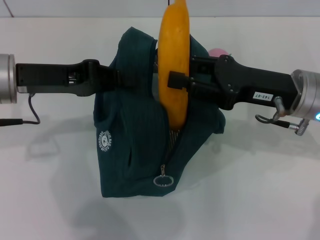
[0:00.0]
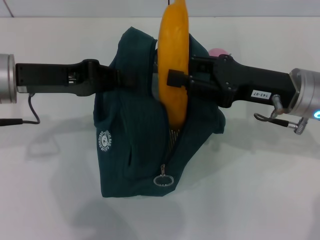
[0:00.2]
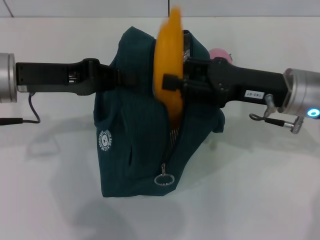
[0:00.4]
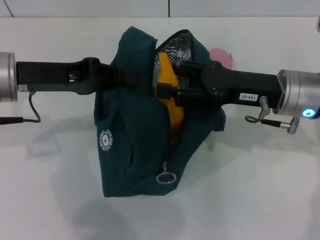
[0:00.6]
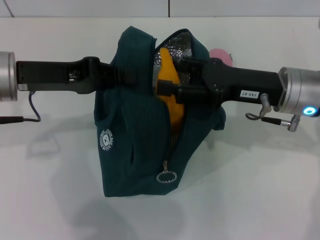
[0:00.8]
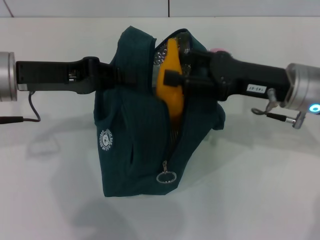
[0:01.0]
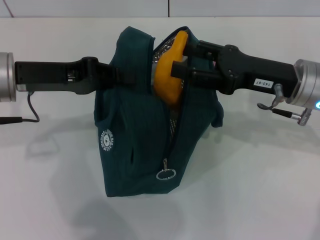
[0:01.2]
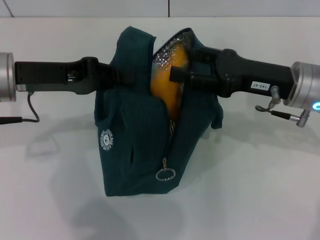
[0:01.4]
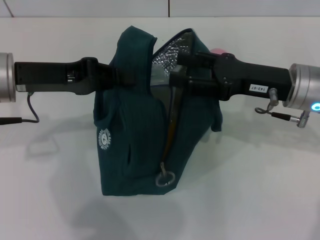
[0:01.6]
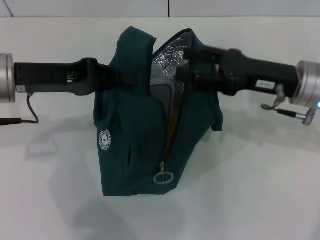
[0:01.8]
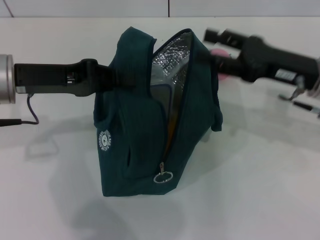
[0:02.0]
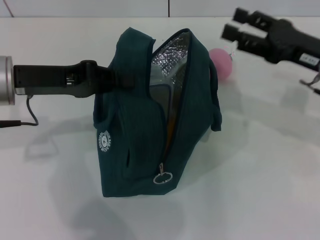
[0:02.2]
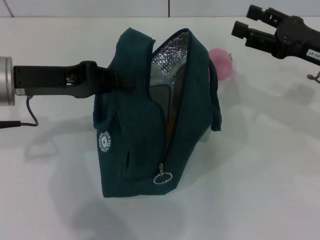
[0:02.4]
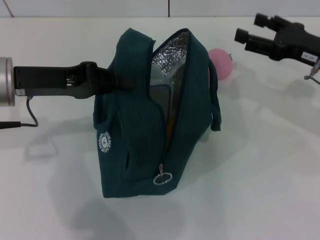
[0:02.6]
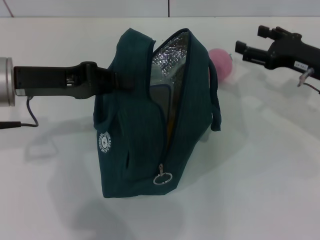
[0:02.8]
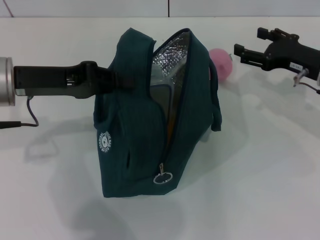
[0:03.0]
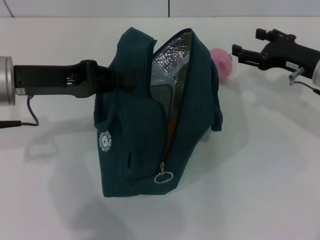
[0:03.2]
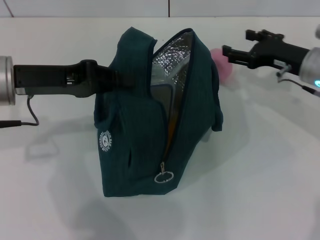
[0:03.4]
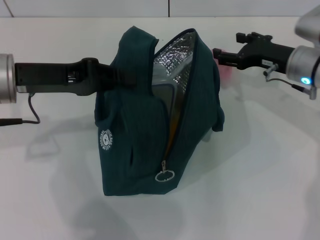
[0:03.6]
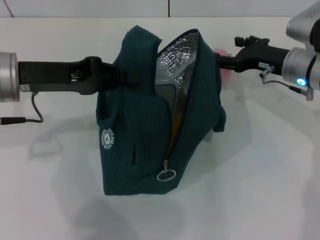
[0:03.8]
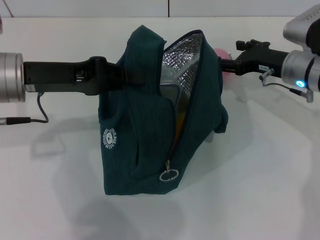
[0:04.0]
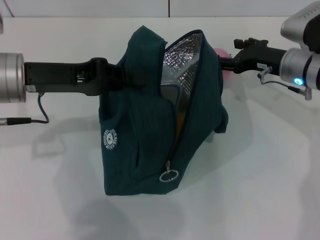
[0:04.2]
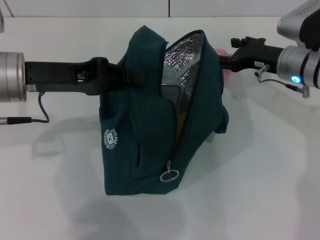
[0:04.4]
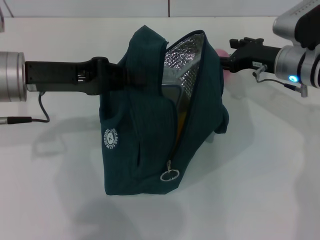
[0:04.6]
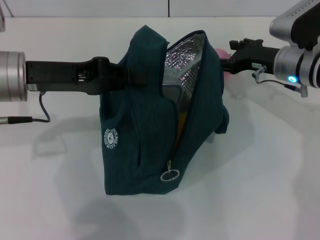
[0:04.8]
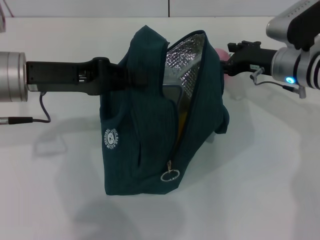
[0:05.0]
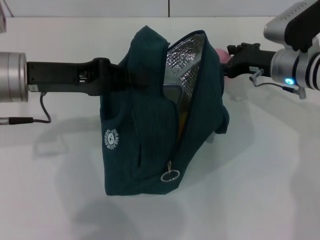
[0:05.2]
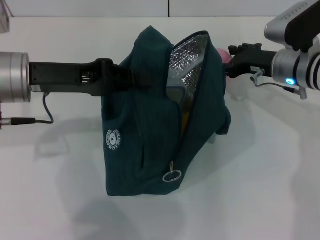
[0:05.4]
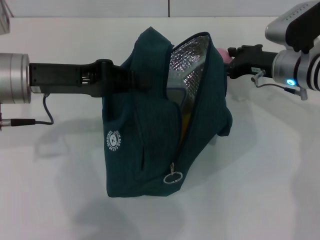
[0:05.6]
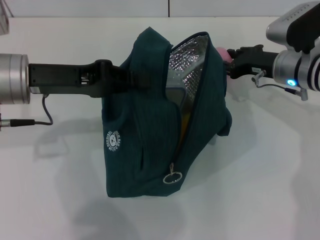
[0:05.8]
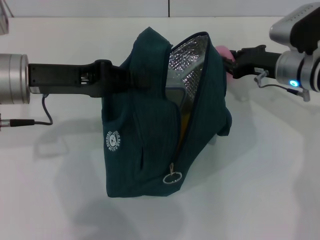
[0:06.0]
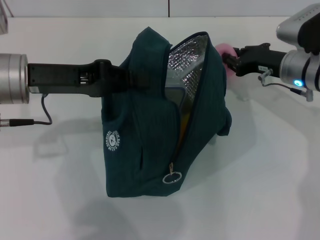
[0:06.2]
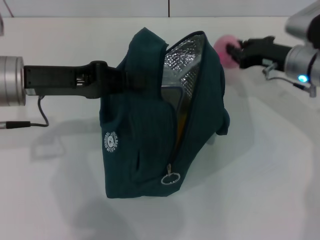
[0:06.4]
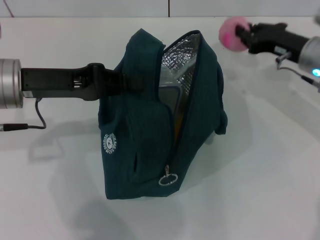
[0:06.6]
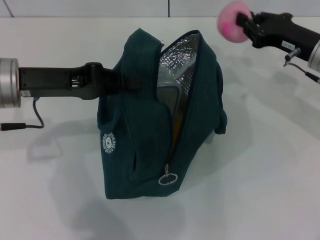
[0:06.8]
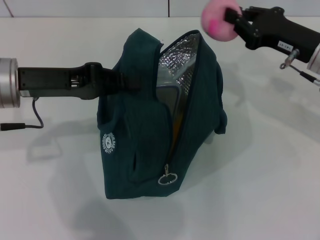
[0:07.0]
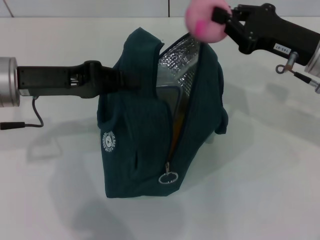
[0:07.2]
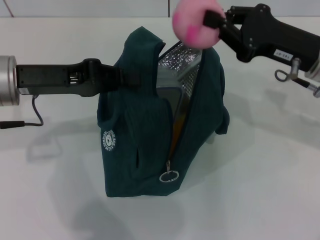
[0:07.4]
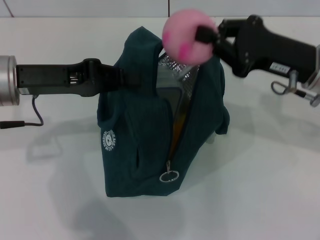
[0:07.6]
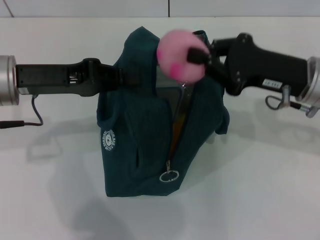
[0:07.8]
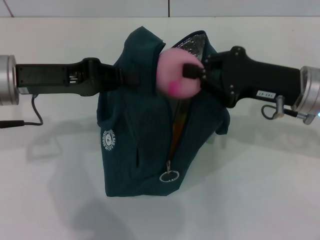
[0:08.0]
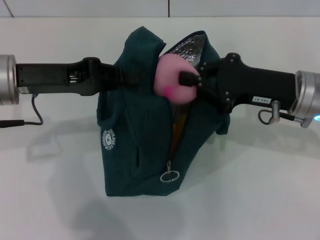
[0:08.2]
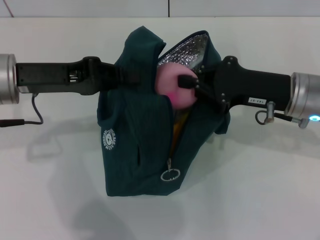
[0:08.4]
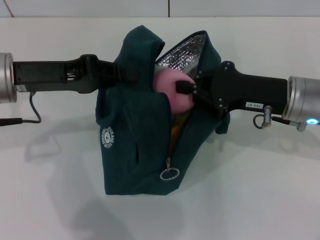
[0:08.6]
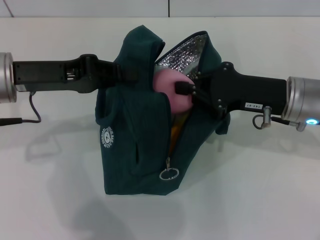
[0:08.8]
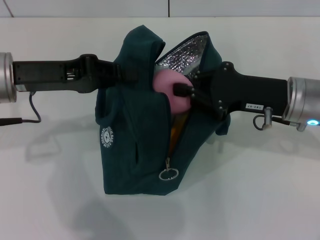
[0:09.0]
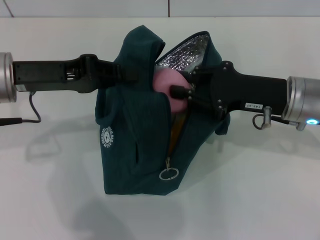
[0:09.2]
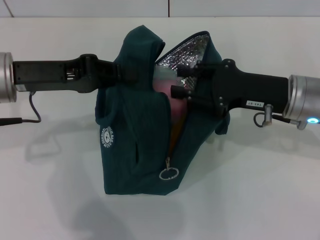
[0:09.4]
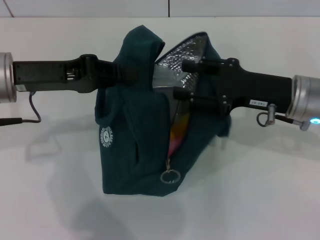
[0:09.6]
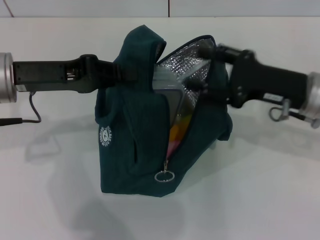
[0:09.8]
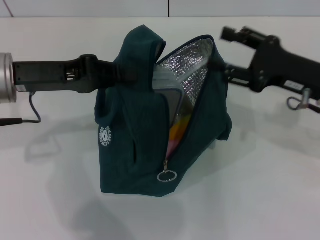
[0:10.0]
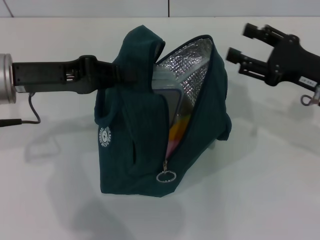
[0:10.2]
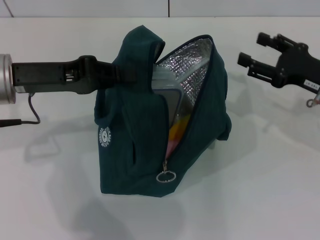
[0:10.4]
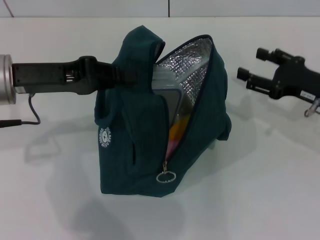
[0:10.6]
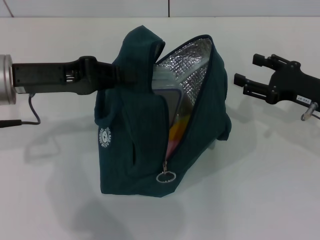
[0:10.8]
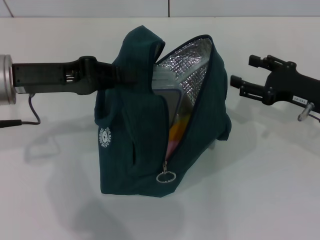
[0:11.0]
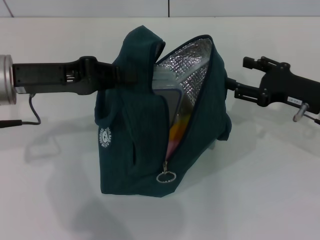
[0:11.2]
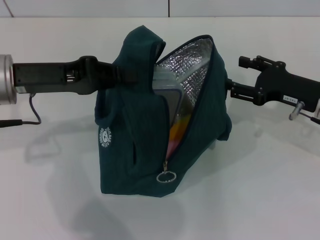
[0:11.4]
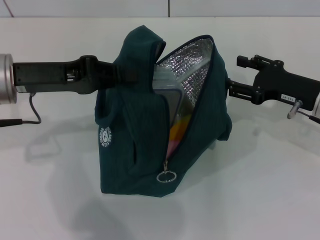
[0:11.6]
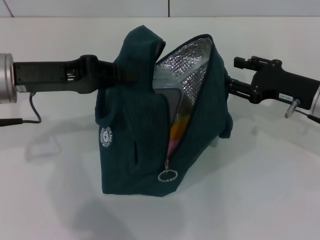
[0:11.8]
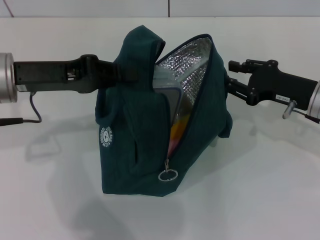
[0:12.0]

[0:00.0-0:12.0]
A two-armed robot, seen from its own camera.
Step, 0:02.0 to 0:06.0: Grab the peach with your right hand.
0:00.0 to 0:01.6: The right gripper opens up.
0:01.6 to 0:03.0: The right gripper heads to the right, covering roughly 5 cm.
0:03.0 to 0:04.4: The right gripper goes about 5 cm to the left.
0:04.4 to 0:06.0: The right gripper closes up.
0:06.0 to 0:07.6: The right gripper heads backward and upward, covering about 10 cm, and closes.
0:09.0 to 0:10.4: The right gripper travels to the right by roughly 10 cm, and opens.
0:10.4 to 0:12.0: The grippers make only small movements.

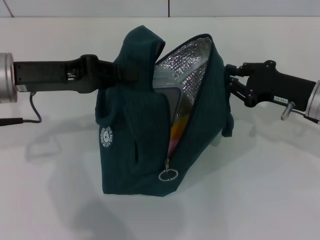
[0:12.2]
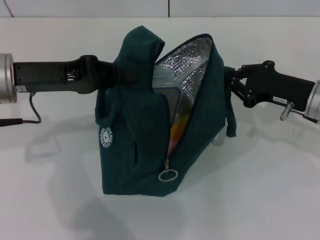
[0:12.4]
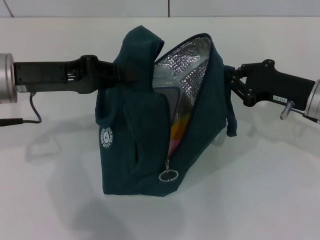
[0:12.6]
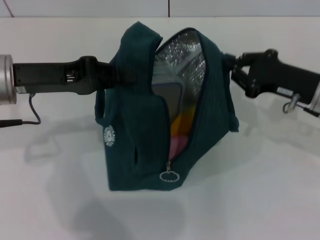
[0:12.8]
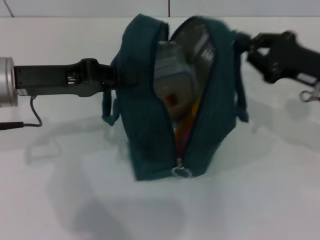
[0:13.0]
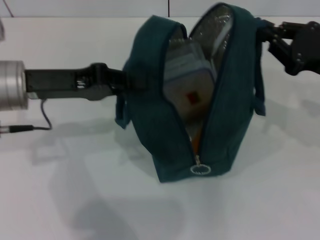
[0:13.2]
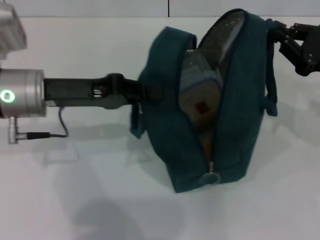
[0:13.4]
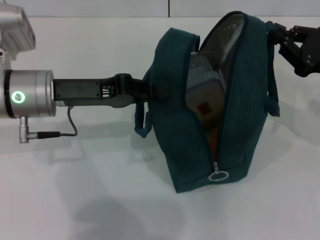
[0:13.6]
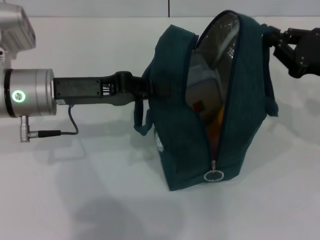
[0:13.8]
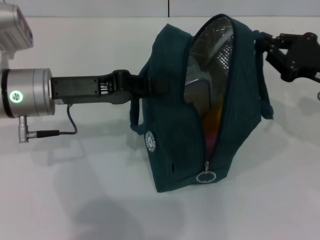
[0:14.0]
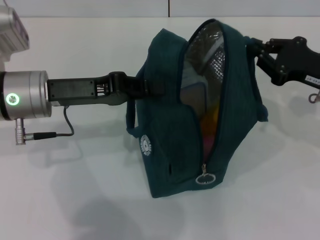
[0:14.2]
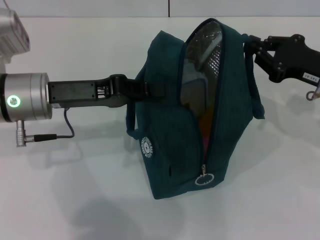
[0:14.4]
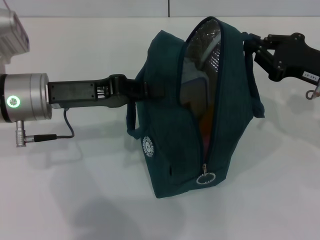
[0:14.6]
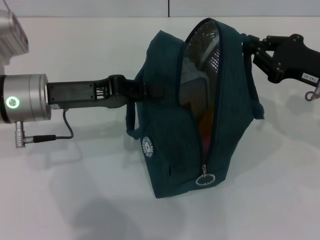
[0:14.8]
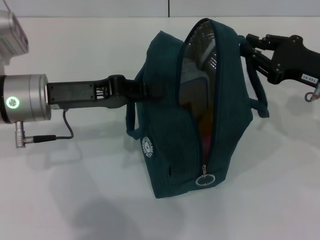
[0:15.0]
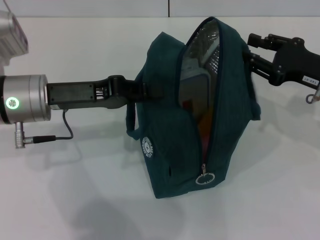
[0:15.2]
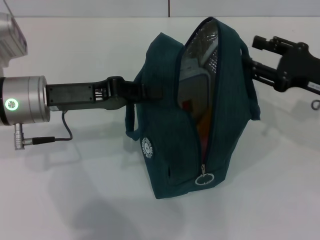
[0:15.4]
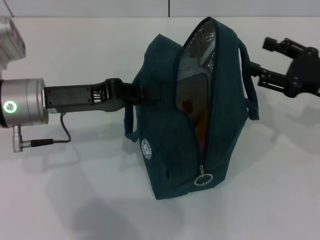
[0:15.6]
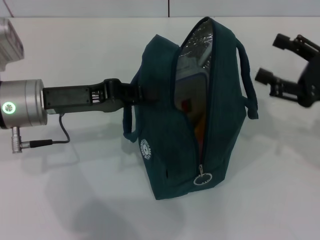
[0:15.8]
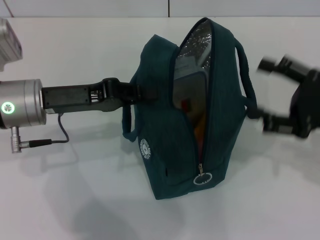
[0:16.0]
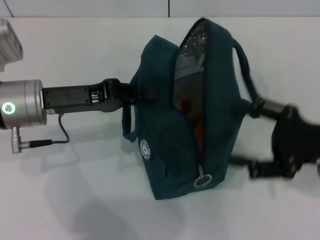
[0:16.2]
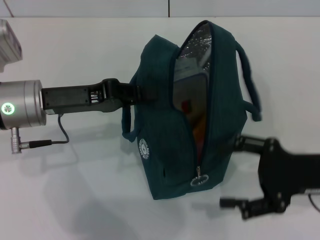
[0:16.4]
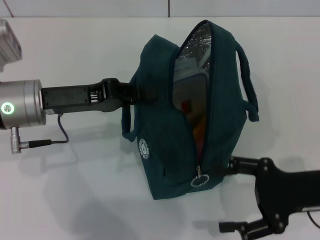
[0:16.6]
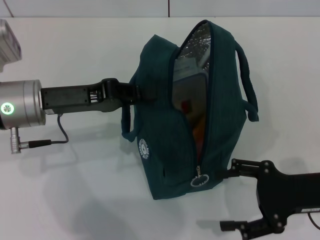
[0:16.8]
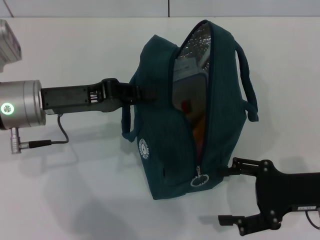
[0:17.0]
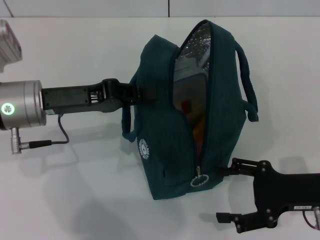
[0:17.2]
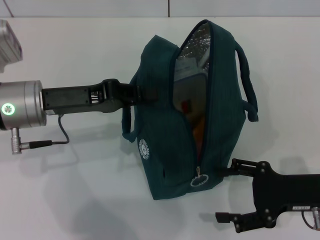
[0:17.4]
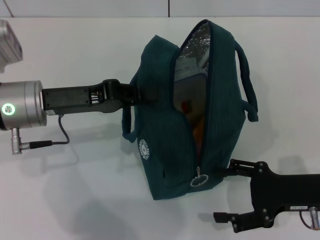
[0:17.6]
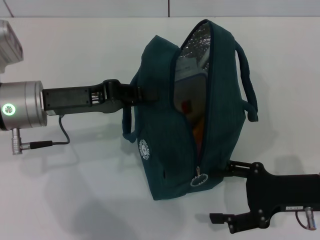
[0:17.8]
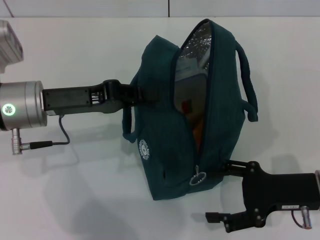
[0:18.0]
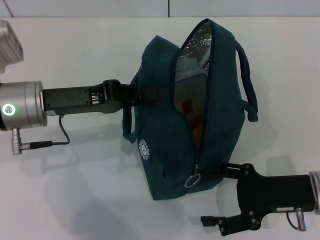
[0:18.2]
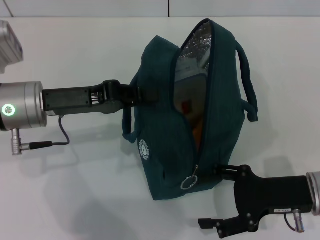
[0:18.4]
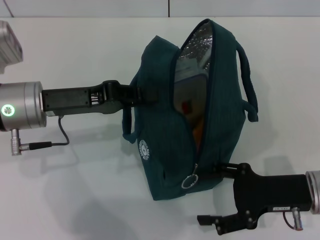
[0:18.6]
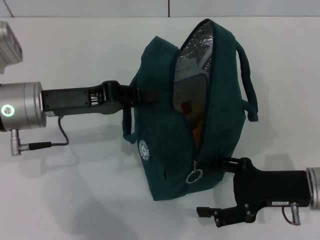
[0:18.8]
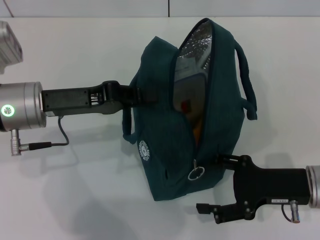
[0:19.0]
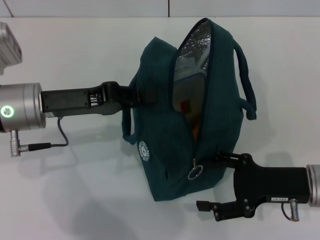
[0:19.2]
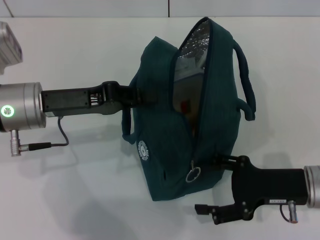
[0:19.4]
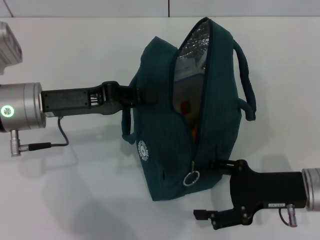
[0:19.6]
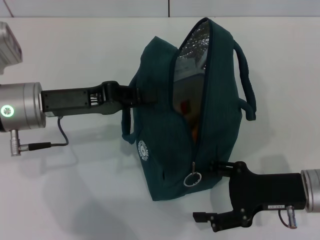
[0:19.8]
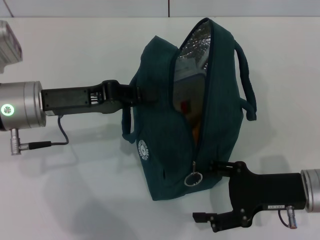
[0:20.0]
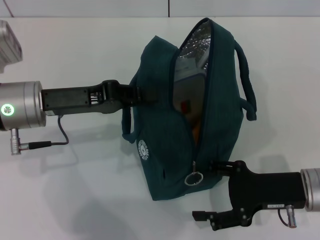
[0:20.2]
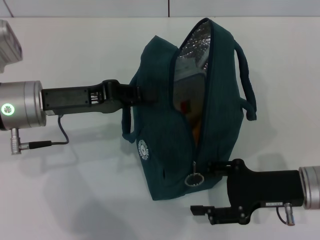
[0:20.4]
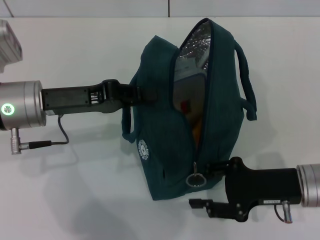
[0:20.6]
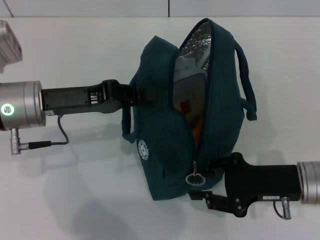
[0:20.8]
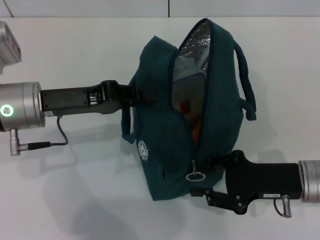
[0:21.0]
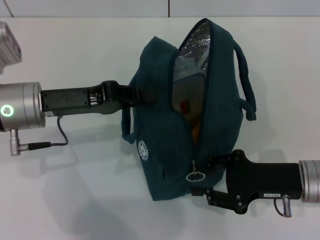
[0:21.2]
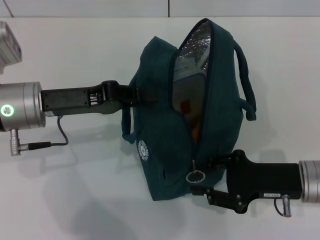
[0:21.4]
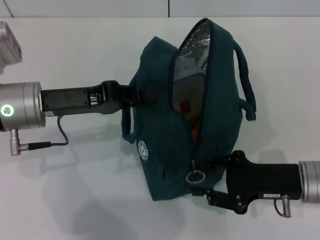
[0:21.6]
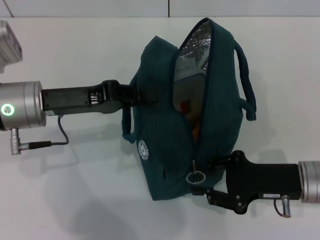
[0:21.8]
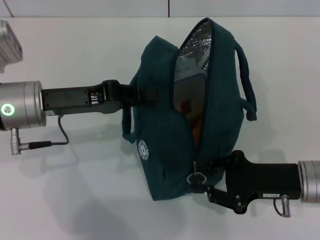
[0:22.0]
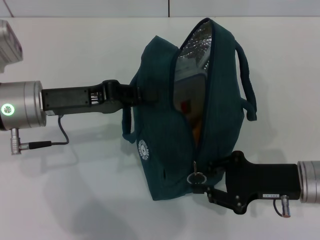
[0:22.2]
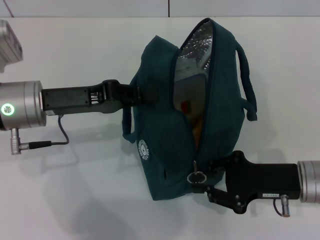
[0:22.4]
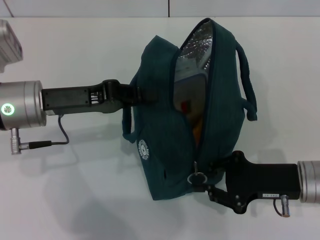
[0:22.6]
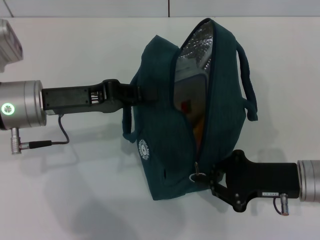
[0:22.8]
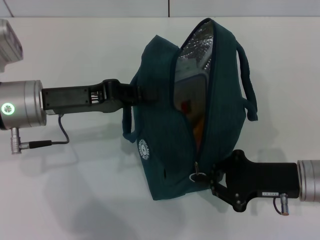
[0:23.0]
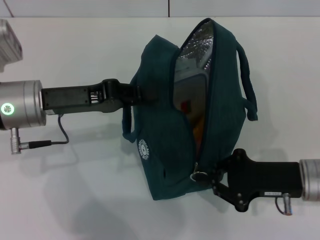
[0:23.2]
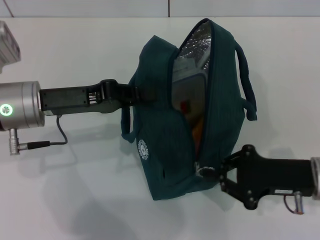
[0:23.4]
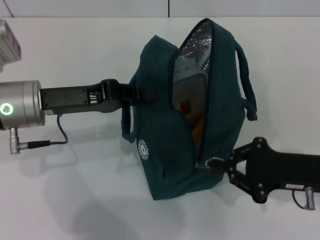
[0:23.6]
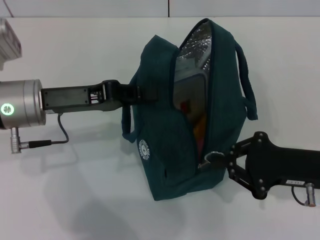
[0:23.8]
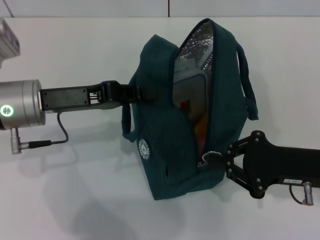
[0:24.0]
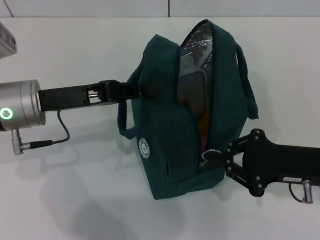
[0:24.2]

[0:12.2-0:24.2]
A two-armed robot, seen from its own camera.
Step, 0:12.2 to 0:15.2: Hold the lunch bag with your right hand.
0:12.2 to 0:13.8: The right gripper ends up roughly 5 cm from where it was, and closes.
0:13.8 to 0:15.2: There are only small adjustments of the grippers.
0:15.2 to 0:16.6: The right gripper moves backward, roughly 10 cm, and opens up.
0:16.6 to 0:18.2: There are only small adjustments of the grippers.
0:18.2 to 0:19.8: Both grippers stay put.
0:19.8 to 0:21.2: The right gripper closes up.
0:21.2 to 0:22.6: Neither gripper changes place.
0:22.6 to 0:24.2: There are only small adjustments of the grippers.
